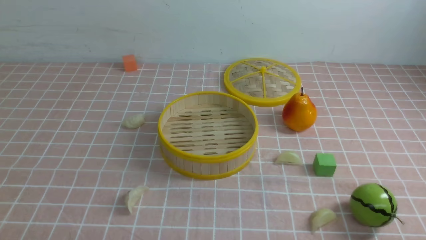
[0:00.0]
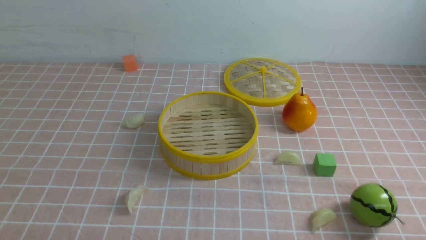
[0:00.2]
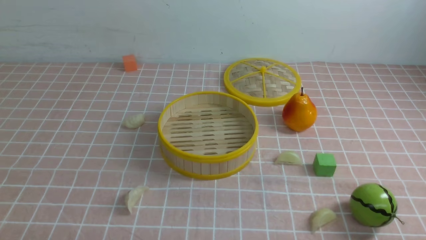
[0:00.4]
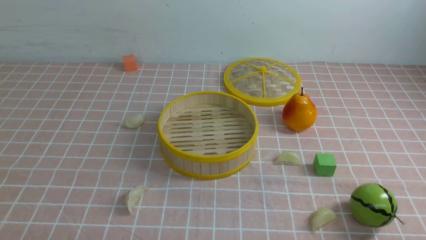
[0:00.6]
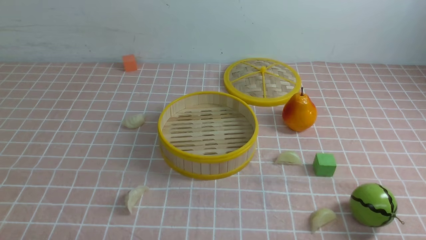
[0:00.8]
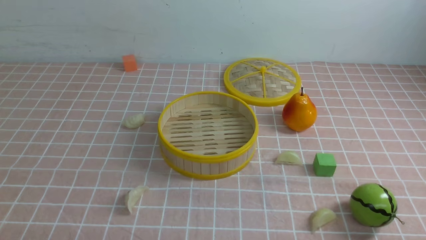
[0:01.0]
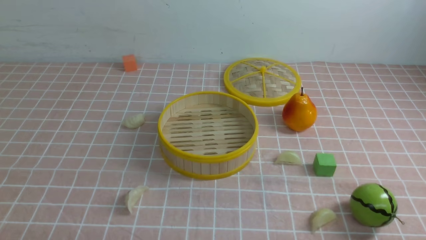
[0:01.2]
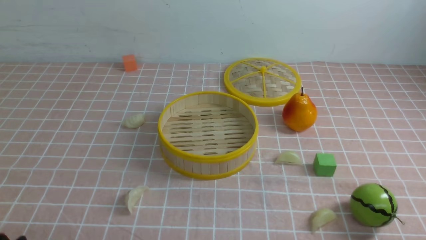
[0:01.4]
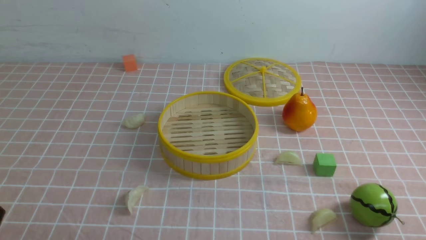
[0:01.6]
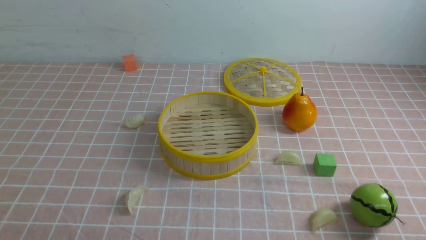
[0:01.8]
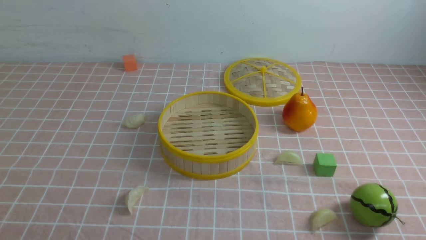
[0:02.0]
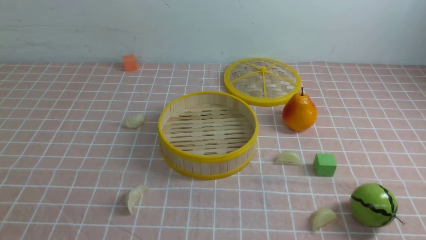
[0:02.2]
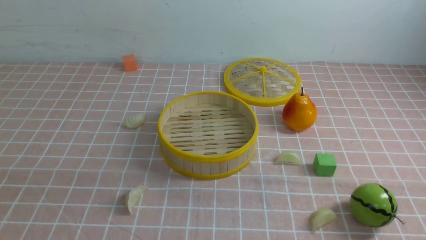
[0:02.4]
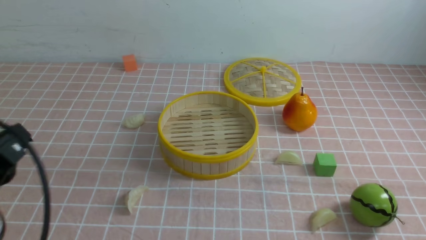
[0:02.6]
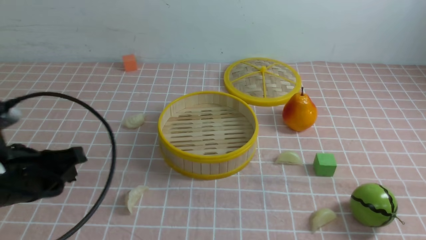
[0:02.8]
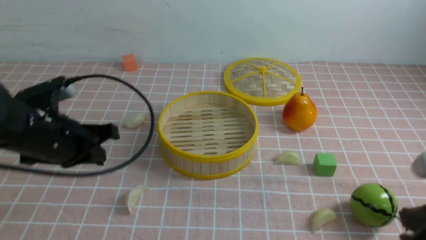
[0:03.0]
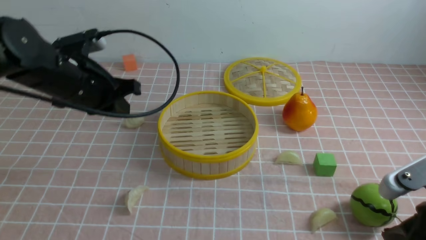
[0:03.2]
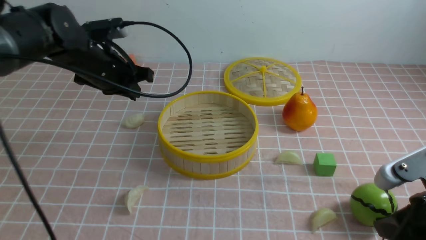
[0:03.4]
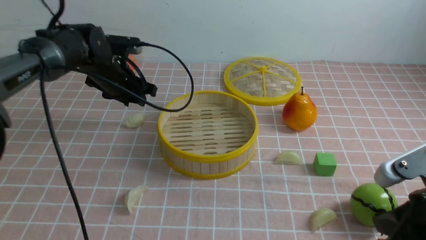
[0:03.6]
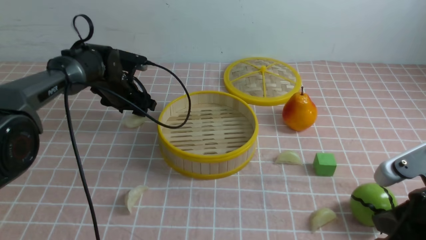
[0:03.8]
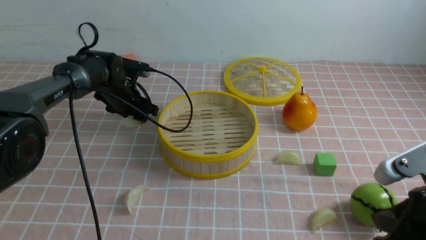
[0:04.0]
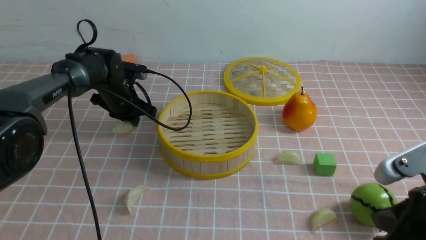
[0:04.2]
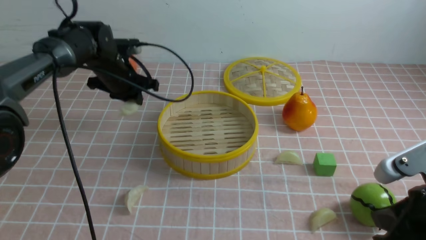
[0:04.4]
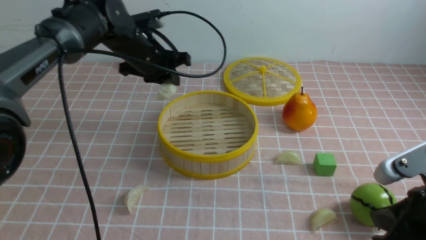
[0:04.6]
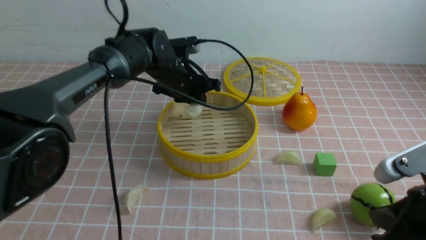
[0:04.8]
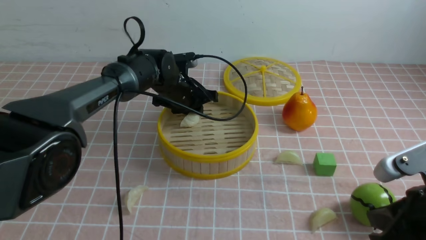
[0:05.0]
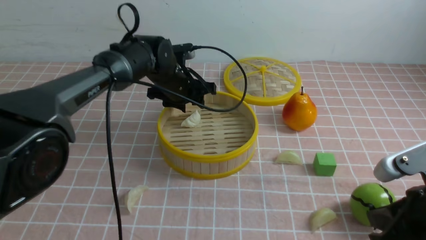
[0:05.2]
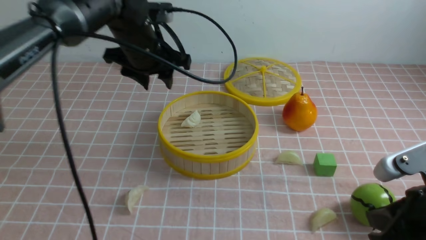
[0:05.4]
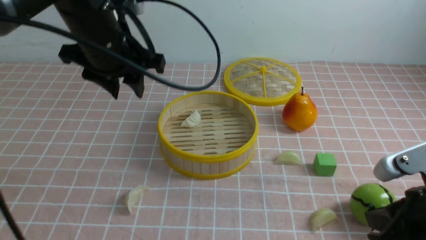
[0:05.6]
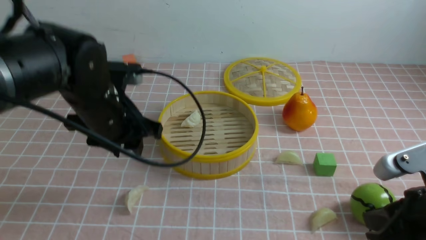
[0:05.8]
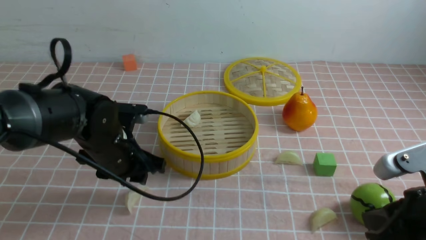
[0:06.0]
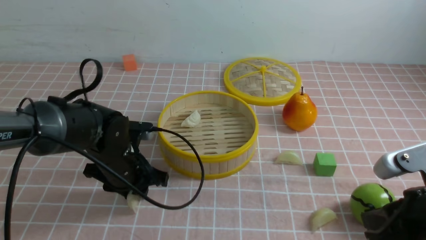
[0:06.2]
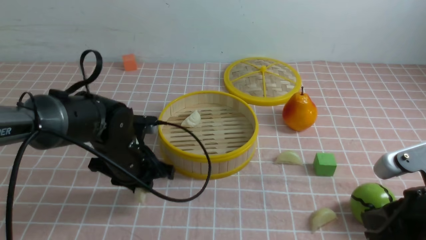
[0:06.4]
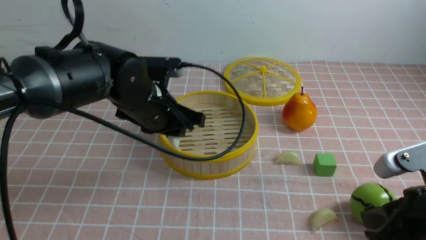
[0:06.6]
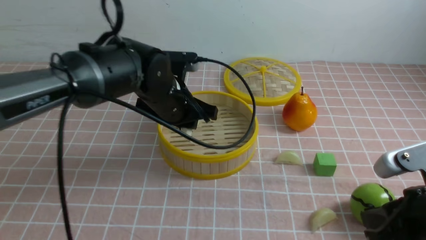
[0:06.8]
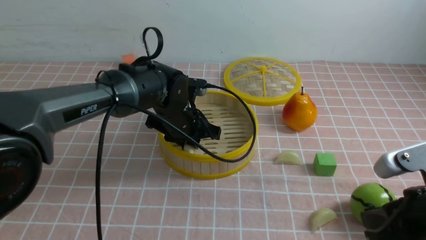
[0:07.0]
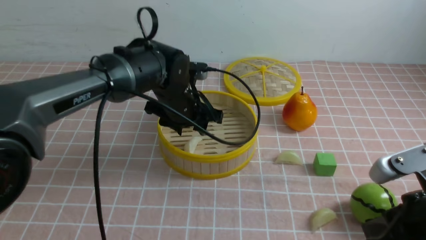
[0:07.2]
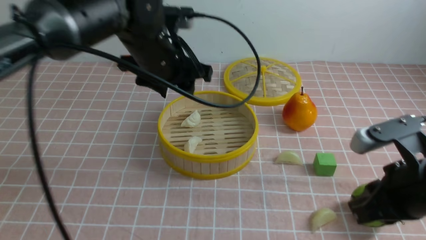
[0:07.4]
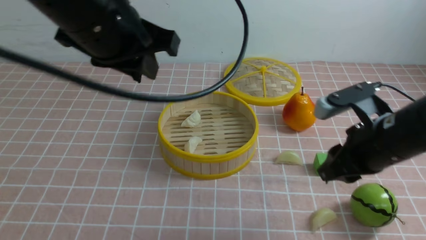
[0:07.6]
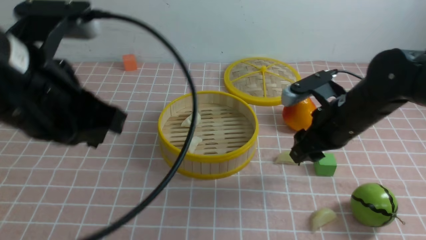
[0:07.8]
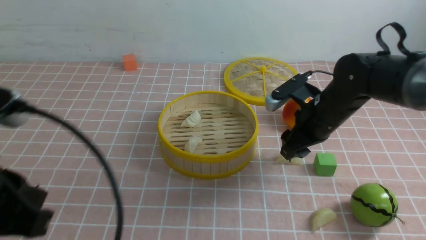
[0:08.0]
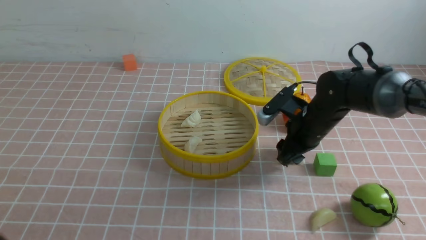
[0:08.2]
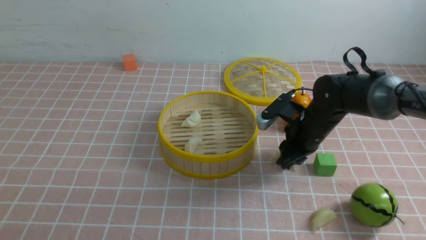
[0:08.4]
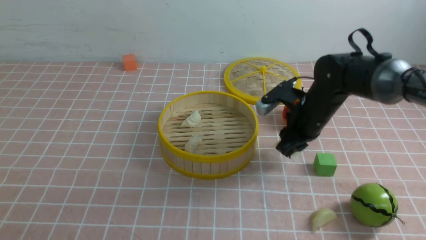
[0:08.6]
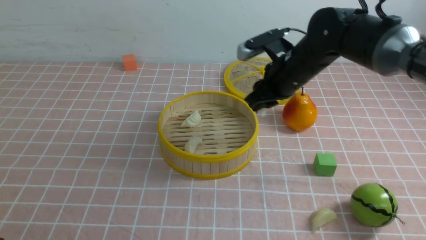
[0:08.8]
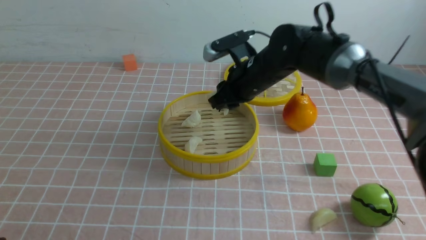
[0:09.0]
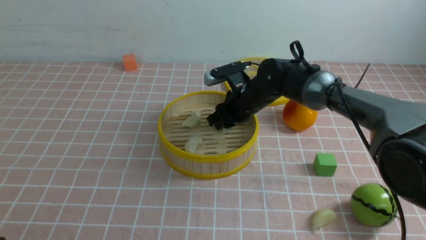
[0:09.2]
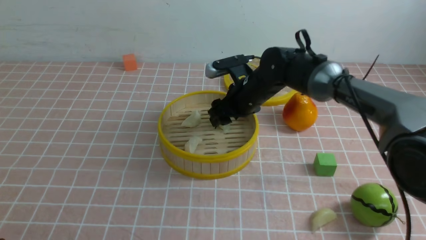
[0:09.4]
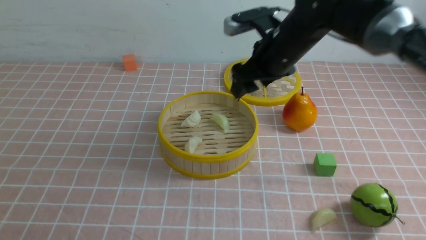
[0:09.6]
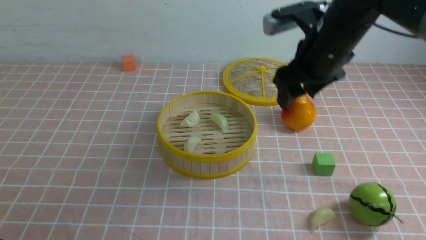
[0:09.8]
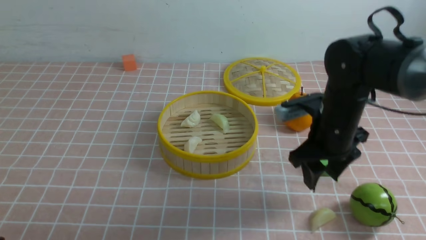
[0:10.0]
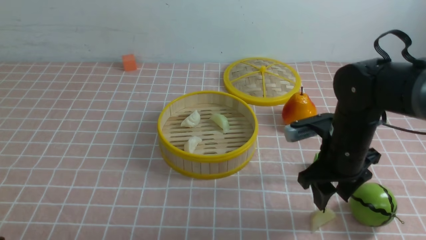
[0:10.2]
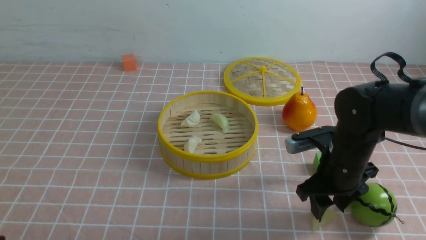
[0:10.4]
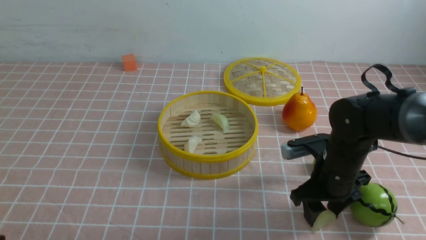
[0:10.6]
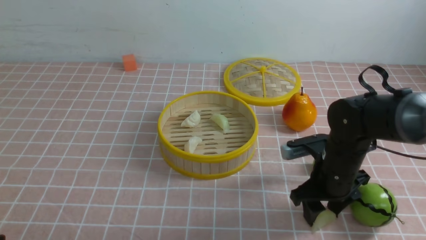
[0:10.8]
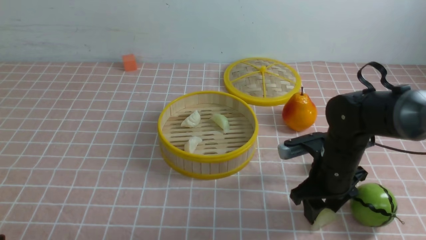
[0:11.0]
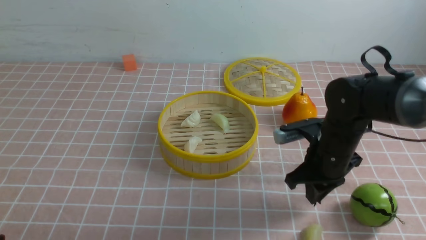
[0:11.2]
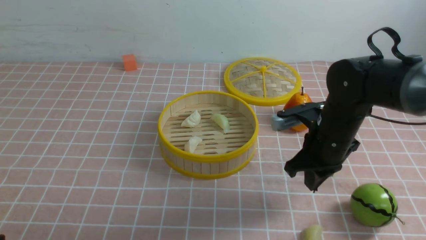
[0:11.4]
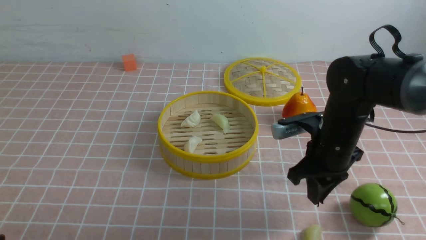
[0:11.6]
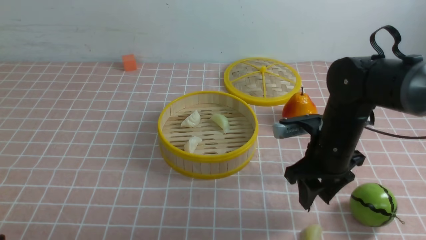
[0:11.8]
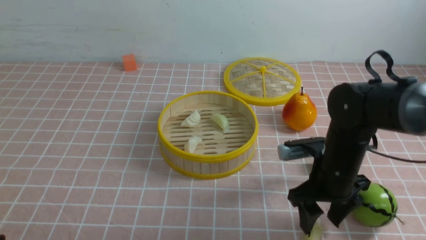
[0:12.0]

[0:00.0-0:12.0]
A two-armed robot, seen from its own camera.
Task of the whole recording: put the dumplings into the steamer on the table with the pink tablecloth.
Step, 0:00.0 to 0:04.2: use the left arm to grab a dumpling.
Step, 0:04.4 to 0:05.0: use the left arm to put the dumpling into the steamer.
Step, 0:05.2 to 0:06.2: use the left arm to grab a dumpling.
Step, 0:06.4 to 0:07.0: use the left arm to put the dumpling into the steamer.
Step, 0:07.2 to 0:08.4: use the right arm to grab a dumpling.
Step, 0:08.6 to 0:09.4: use the right arm to put the dumpling into the steamer.
0:01.6 to 0:03.0: The left gripper moves forward, approximately 25 cm, and closes, while the right gripper goes roughly 10 cm forward and upward, and closes.
0:03.0 to 0:04.4: The left gripper shifts some 20 cm forward, and opens, then closes again.
0:04.4 to 0:06.0: The left gripper travels backward by about 15 cm, and opens up.
0:06.0 to 0:07.6: The left gripper is displaced upward by approximately 20 cm, and closes, while the right gripper goes approximately 10 cm forward, and opens its fingers.
0:07.6 to 0:09.0: The left gripper moves backward, downward and to the left, about 30 cm, and closes its fingers, while the right gripper heads forward and to the left, covering roughly 20 cm, and opens, then closes once more.
0:09.0 to 0:10.4: The right gripper shifts some 15 cm backward and to the right, and opens.
0:10.4 to 0:12.0: The right gripper closes and opens again.

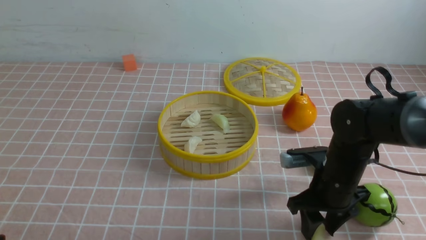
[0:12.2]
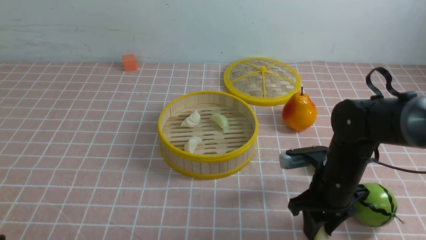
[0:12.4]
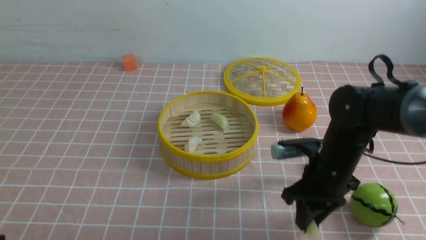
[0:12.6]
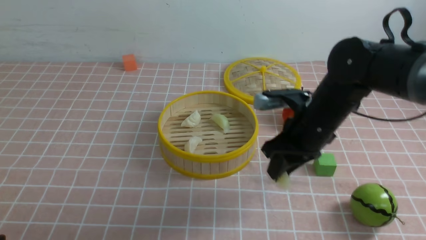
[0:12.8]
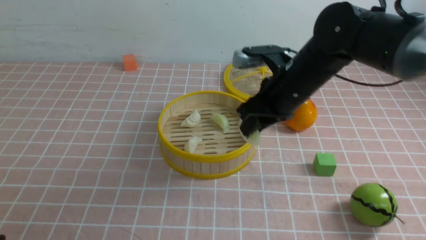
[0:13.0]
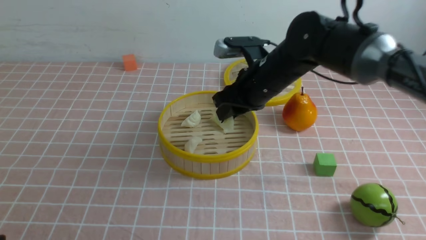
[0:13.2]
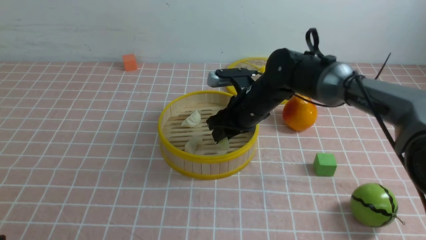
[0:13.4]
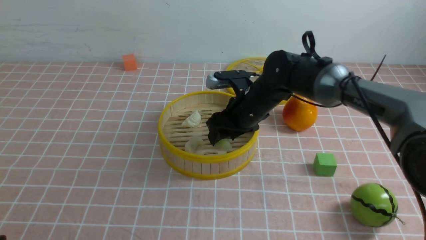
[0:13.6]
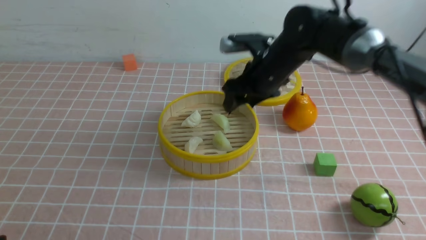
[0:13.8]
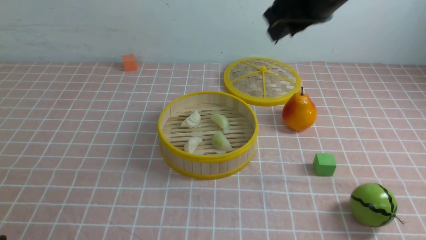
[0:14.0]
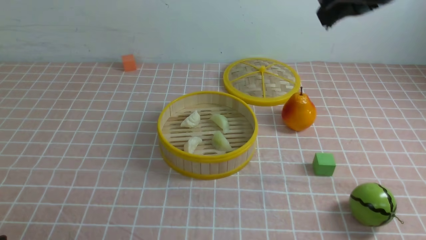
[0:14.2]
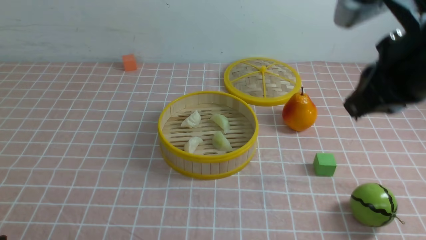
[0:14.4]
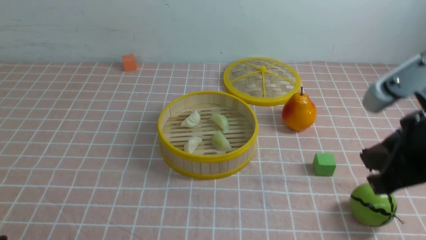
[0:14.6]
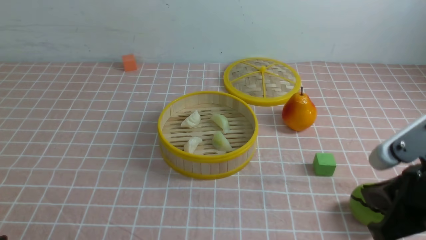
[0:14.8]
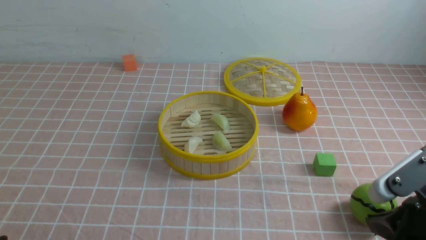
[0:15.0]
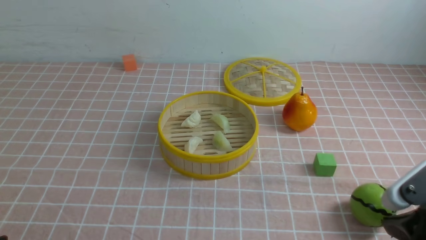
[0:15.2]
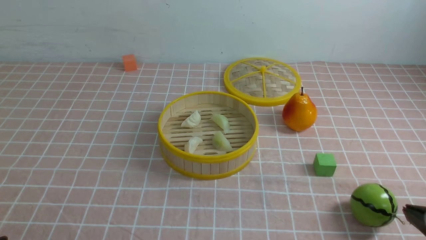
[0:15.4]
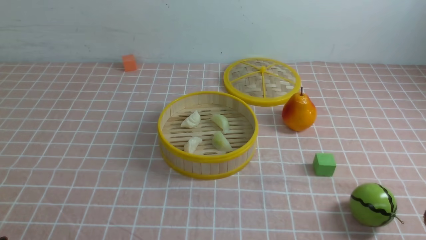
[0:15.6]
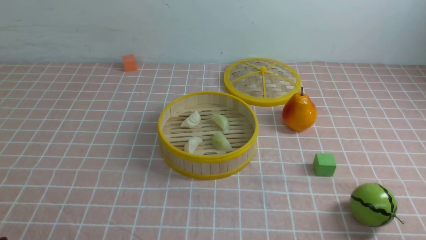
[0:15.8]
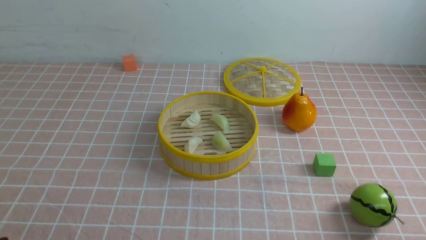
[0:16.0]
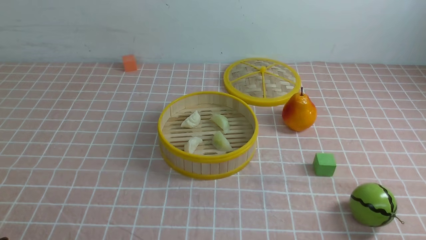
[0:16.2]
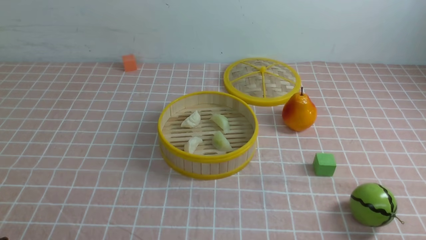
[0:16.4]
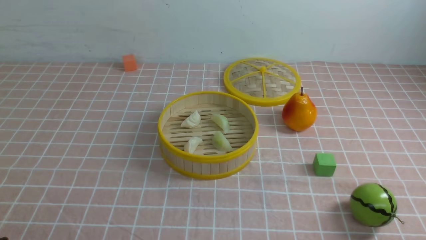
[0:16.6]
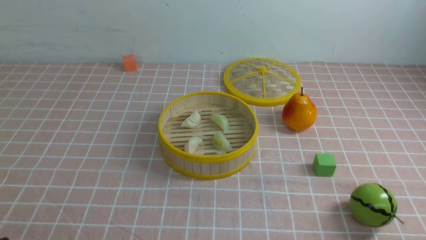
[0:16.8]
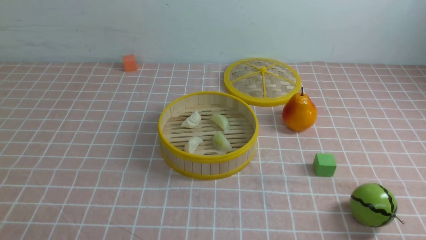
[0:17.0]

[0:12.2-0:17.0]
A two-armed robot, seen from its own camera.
Task of the whole recording: put the dumplings into the steamer on the table with the pink tablecloth.
Step, 0:12.6 to 0:13.6: use the right arm to put the dumpling into the steamer.
0:12.2 to 0:13.8: The right gripper moves up and down over about 15 cm, changing direction 2 times.
0:13.8 to 0:15.4: The right gripper travels backward and to the right by some 35 cm, and closes.
